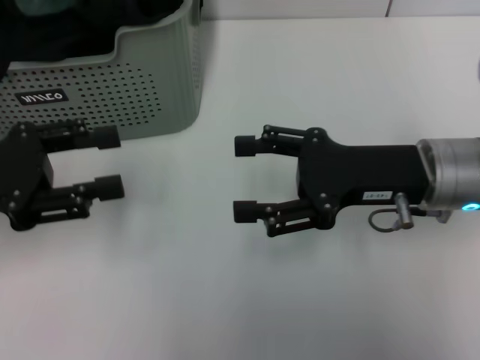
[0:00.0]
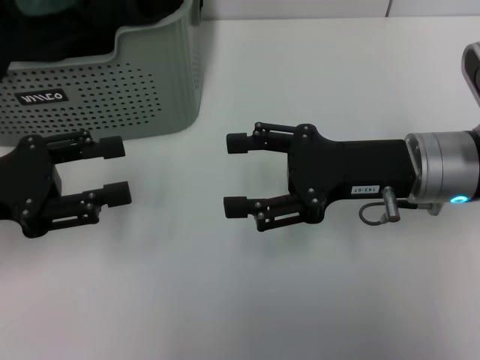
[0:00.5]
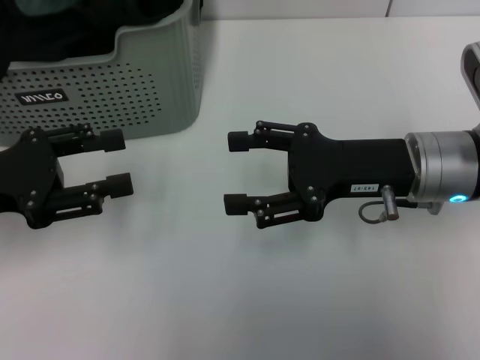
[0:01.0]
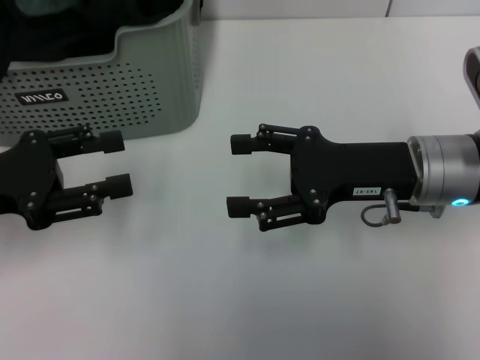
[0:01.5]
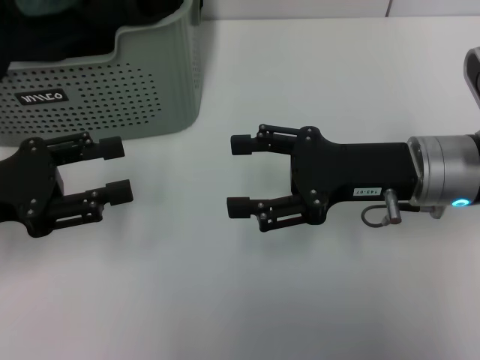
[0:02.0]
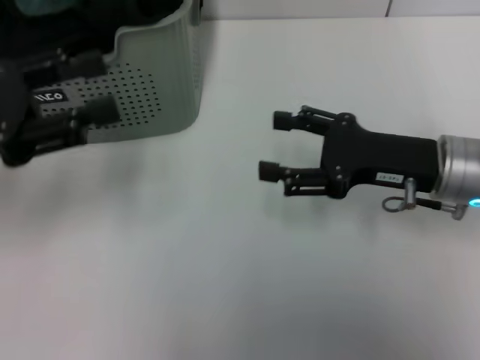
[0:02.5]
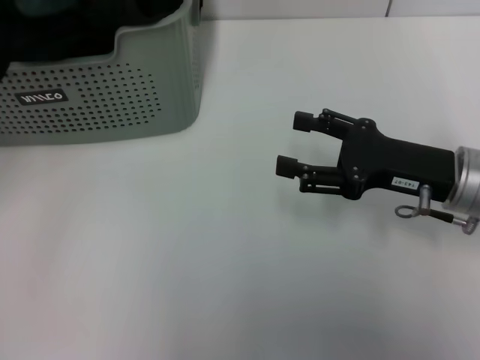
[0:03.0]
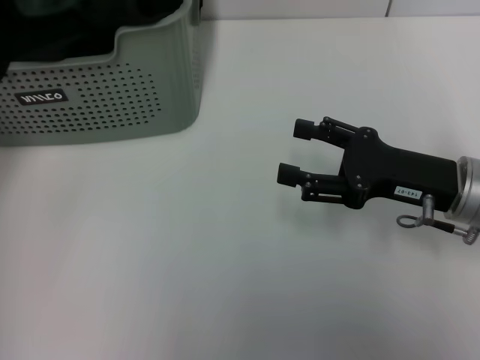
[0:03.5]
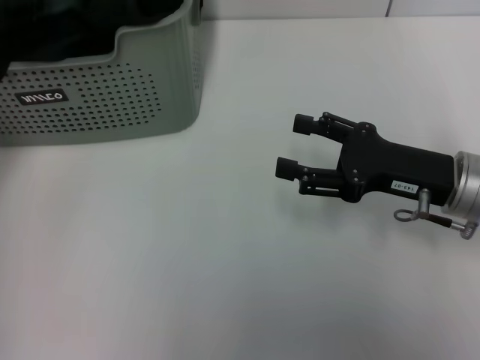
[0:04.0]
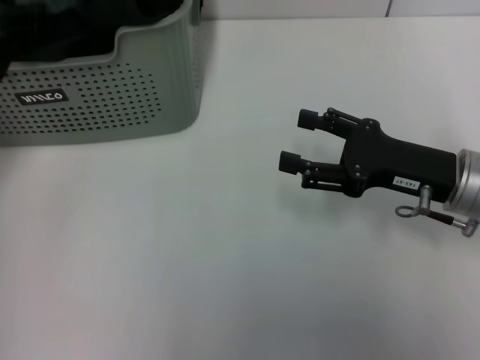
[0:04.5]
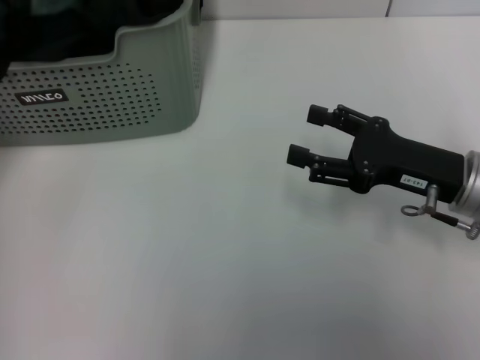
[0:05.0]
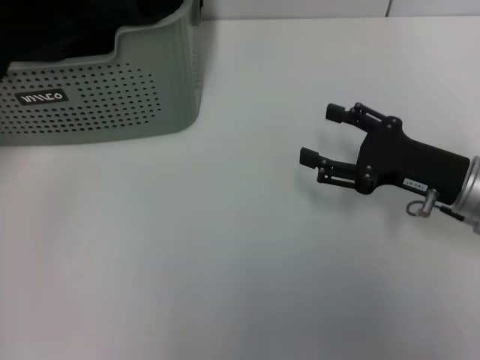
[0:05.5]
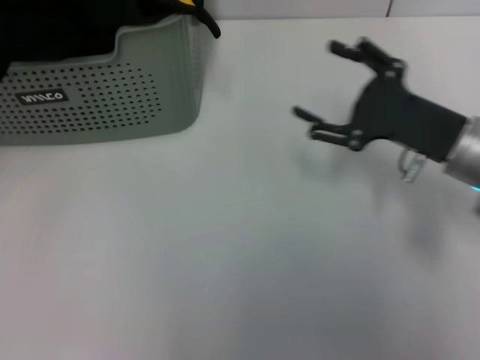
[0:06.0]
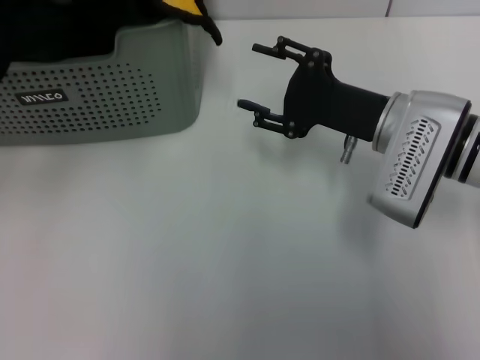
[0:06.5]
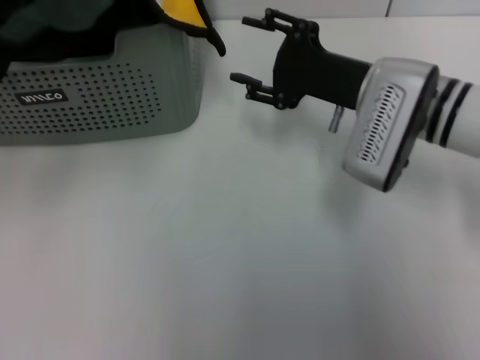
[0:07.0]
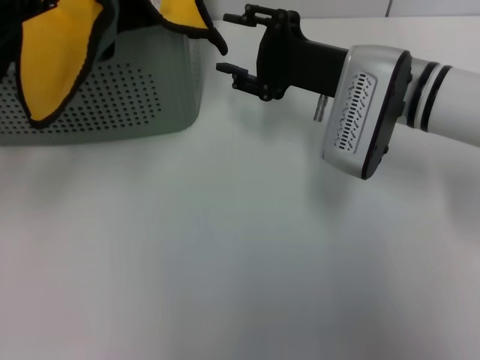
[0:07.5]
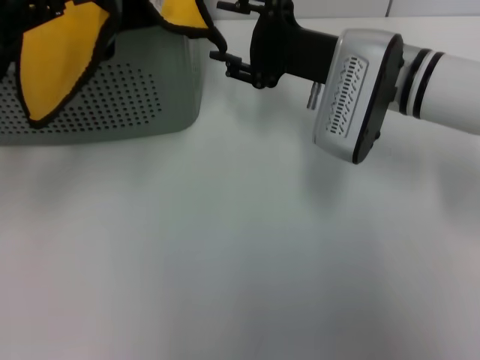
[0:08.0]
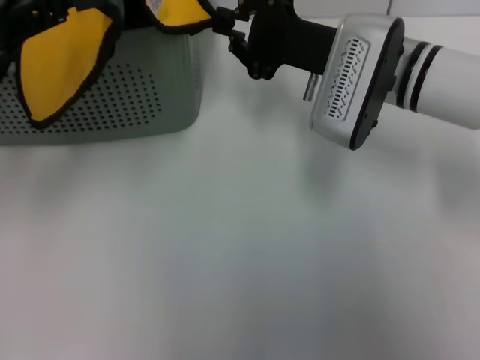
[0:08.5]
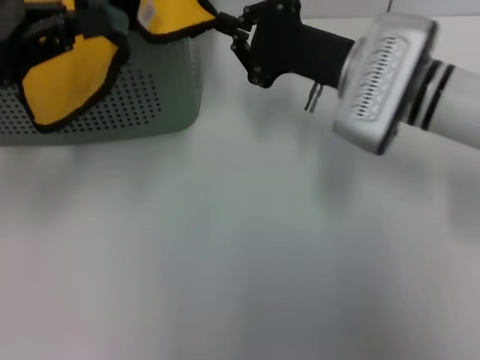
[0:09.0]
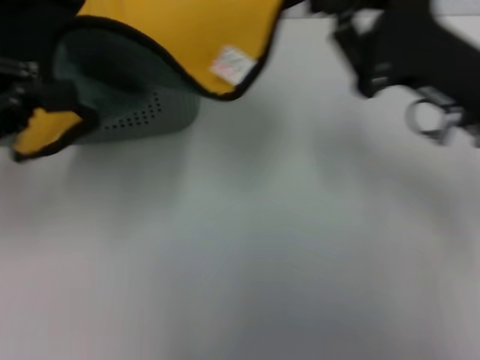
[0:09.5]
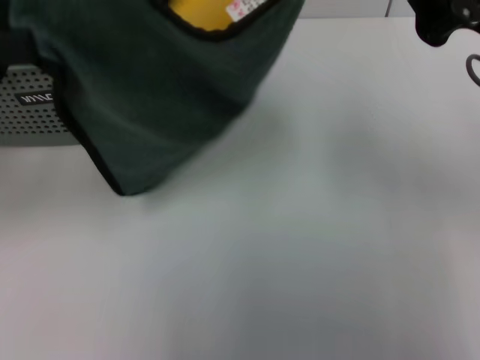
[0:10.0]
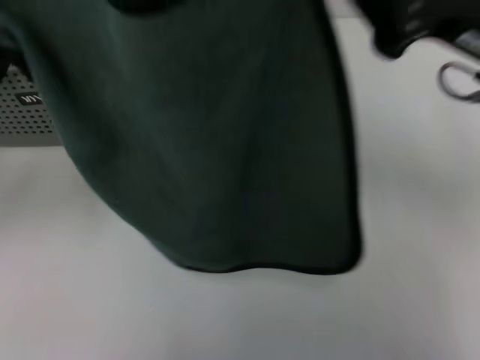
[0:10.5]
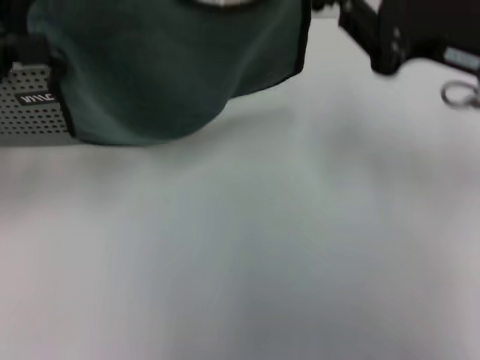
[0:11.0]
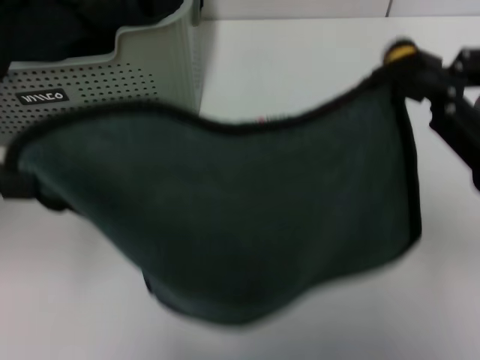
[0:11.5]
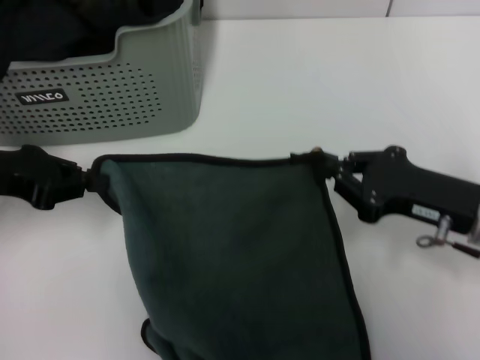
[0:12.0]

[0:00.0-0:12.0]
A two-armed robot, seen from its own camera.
Task of the whole recording: pick up the towel from the storage box and lay it flat on the table.
Step, 0:00.0 to 0:05.0: Pick up a towel with the left gripper.
Step, 0:05.5 to 0:08.5: Spread the towel flat with the left gripper.
0:00.0 to 0:02.0: The grippers make only small movements.
0:02.0 to 0:04.0: The right gripper changes place by approximately 5 cm, while the left gripper is displaced upward and forward by roughly 15 cm.
0:04.0 to 0:06.0: The left gripper closes.
0:06.0 to 0:08.0: The right gripper moves to the left and forward, roughly 10 cm.
0:08.0 to 0:10.0: The left gripper ends up approximately 5 cm from where it was. Meanwhile the right gripper heads backward, to the right and upward, covering approximately 15 cm, and closes its fingers.
0:10.0 to 0:12.0: The grippers both shift downward by approximately 15 cm.

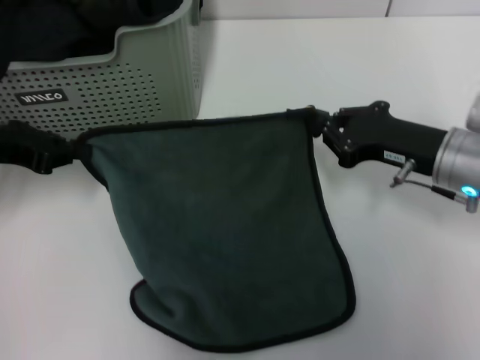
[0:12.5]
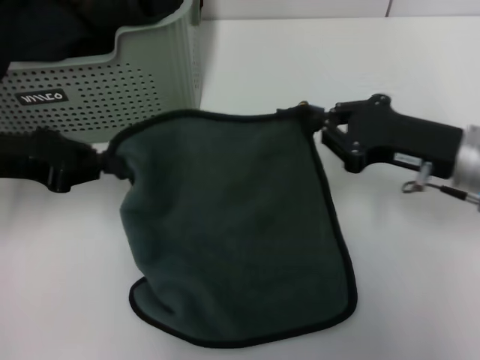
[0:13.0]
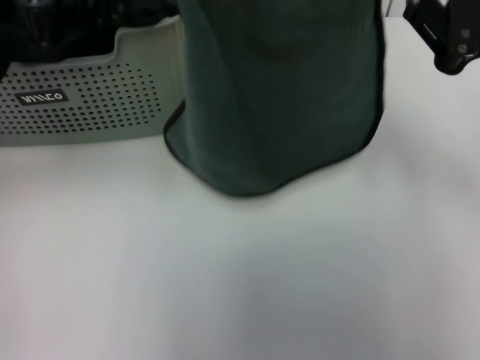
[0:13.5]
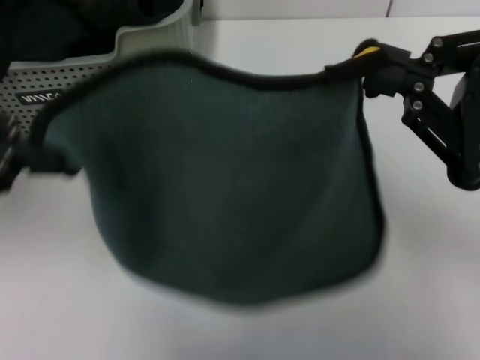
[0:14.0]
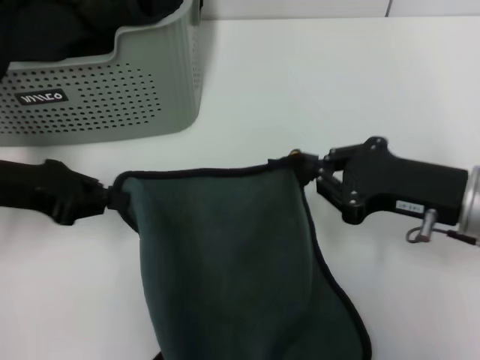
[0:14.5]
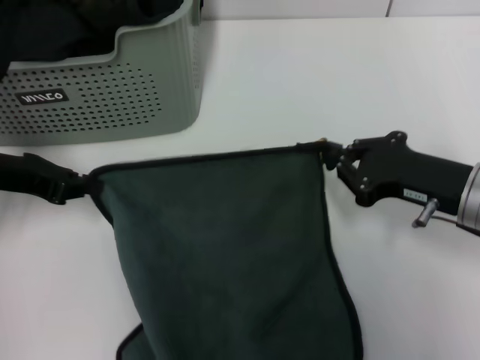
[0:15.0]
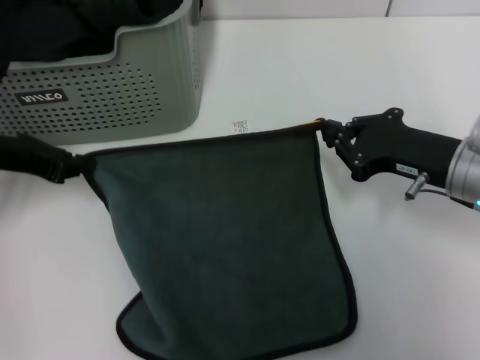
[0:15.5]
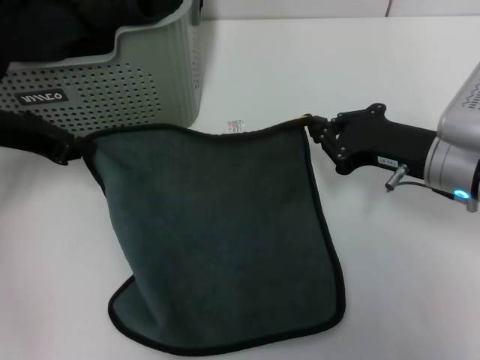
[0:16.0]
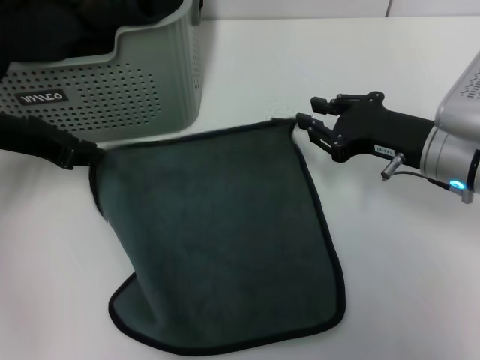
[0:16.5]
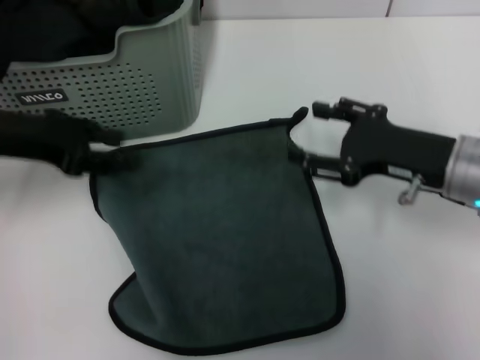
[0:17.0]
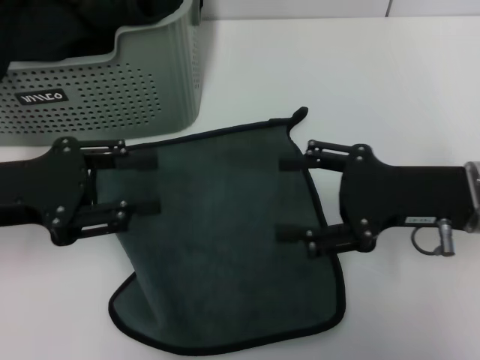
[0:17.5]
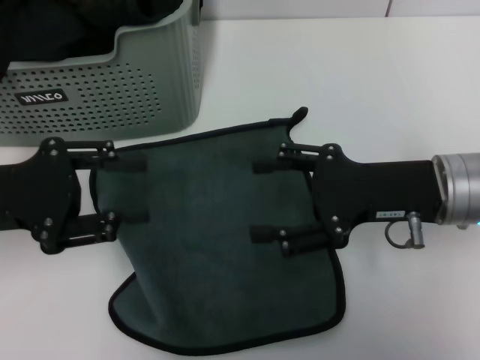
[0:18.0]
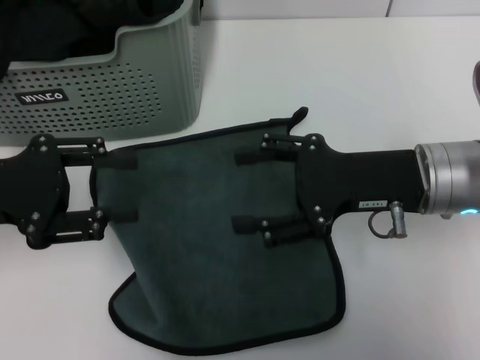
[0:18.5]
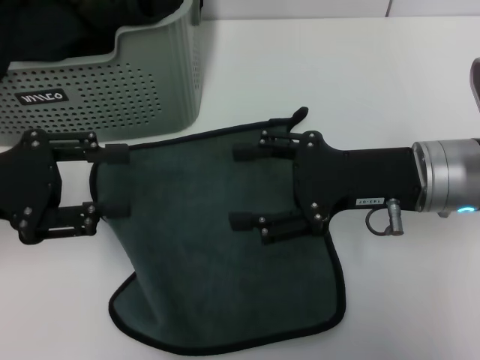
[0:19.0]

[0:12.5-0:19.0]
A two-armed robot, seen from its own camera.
Task of the whole recording: pick up the towel from the storage box and lay it flat on the table.
Step, 0:12.5 to 0:16.5: Spread the towel flat with the right gripper.
0:12.5 to 0:14.5: The left gripper reaches approximately 15 cm upward, then returns, while the right gripper moves backward, some 5 cm, and moves some 15 cm upward and comes back.
0:14.5 to 0:17.0: The left gripper opens; the right gripper opens its fingers.
0:17.0 to 0:19.0: The left gripper heads backward, covering about 5 cm; the right gripper opens.
